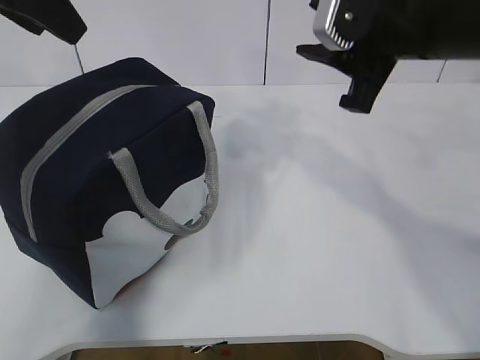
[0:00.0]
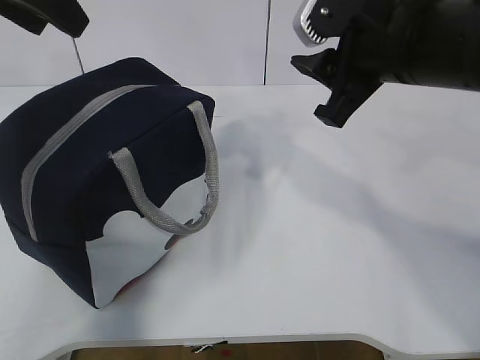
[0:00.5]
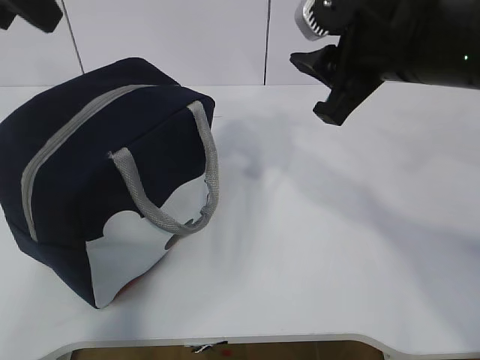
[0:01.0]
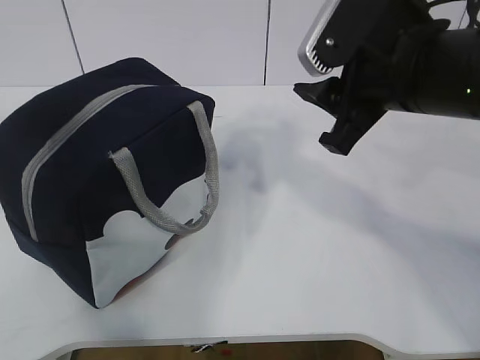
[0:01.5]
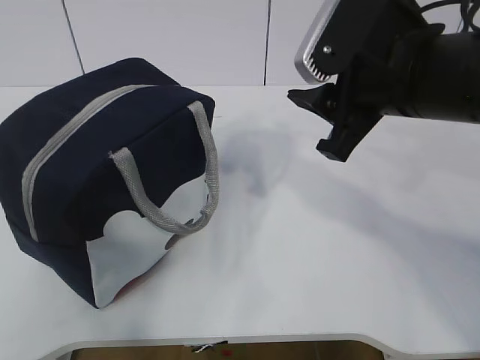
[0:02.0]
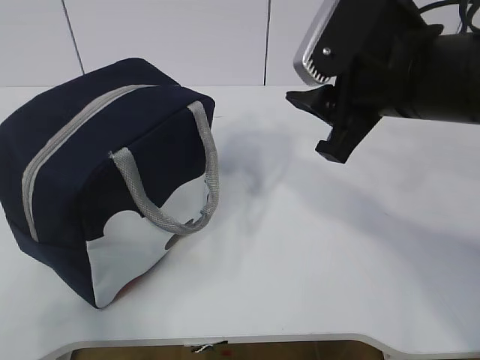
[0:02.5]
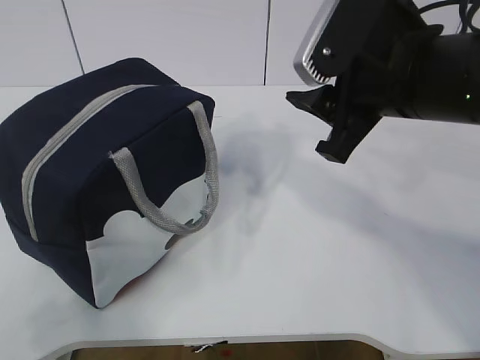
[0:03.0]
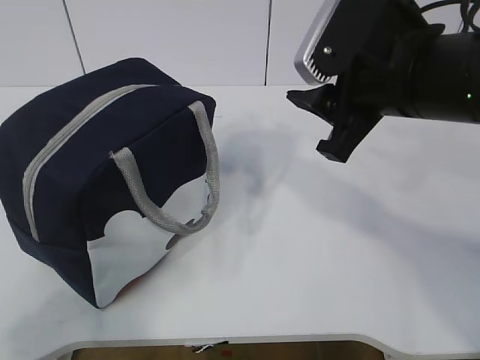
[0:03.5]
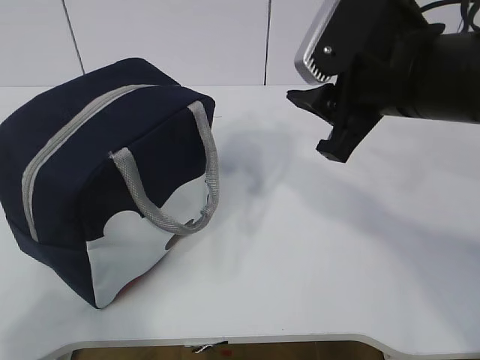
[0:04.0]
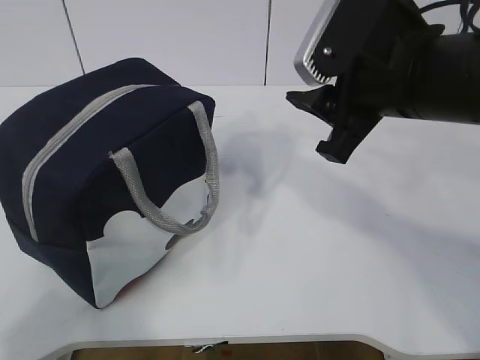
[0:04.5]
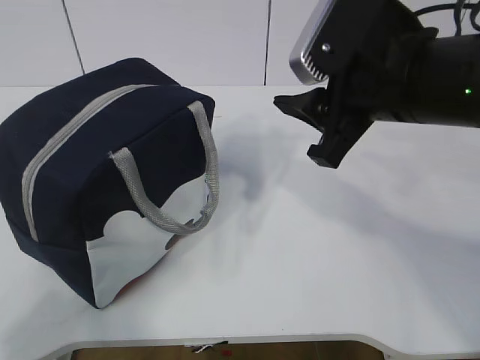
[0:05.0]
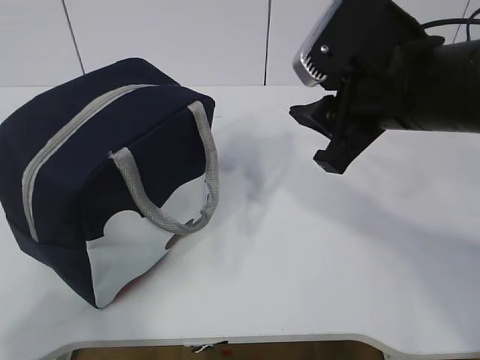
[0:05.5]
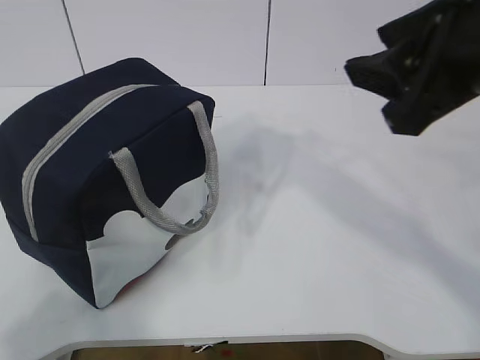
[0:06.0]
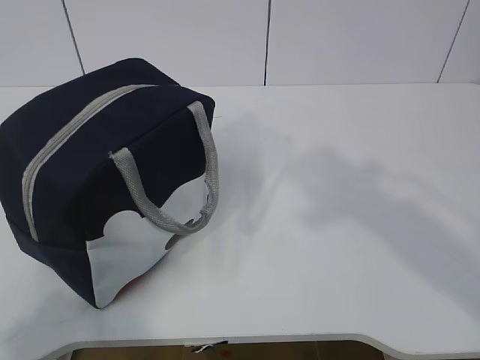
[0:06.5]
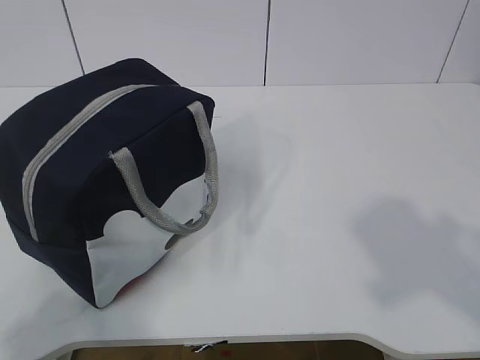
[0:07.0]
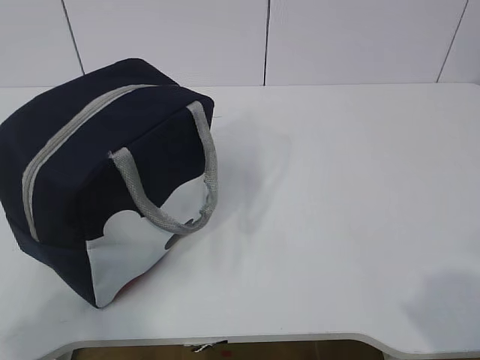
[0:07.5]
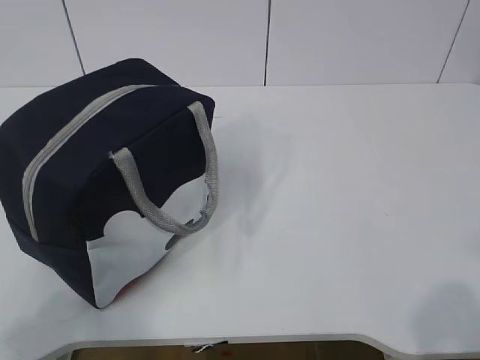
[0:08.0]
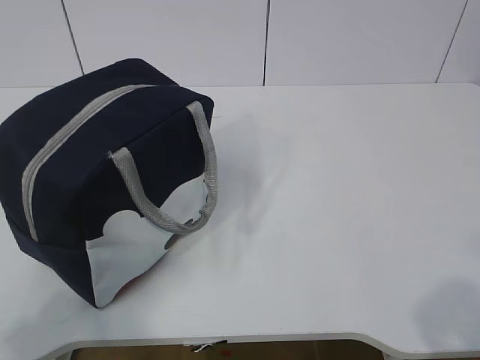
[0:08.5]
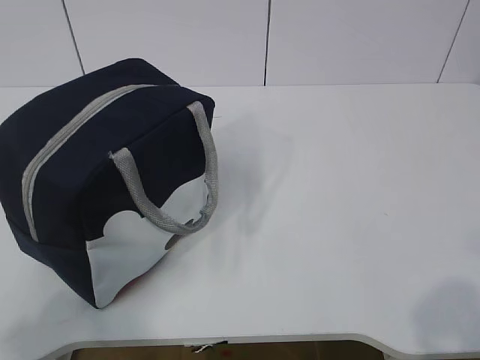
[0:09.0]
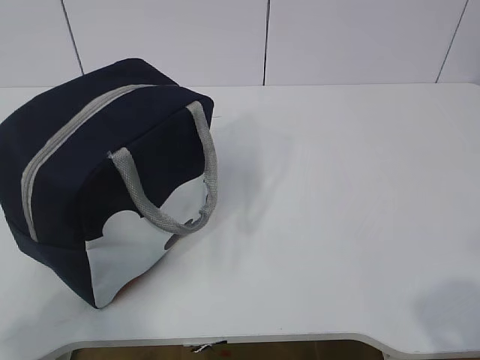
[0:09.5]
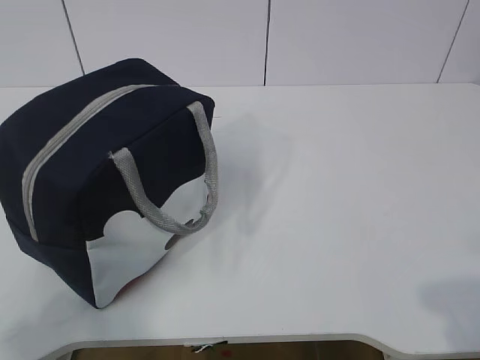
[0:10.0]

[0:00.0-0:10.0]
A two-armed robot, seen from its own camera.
0.0 to 2.0 s: The left gripper goes roughly 30 cm backward.
4.0 to 6.0 s: The right gripper goes approximately 5 cm backward.
6.0 to 8.0 s: The right gripper is displaced backward and to the right by approximately 25 cm.

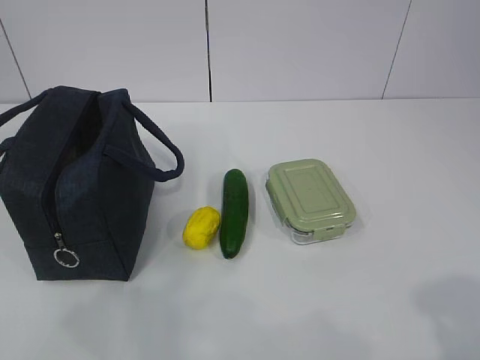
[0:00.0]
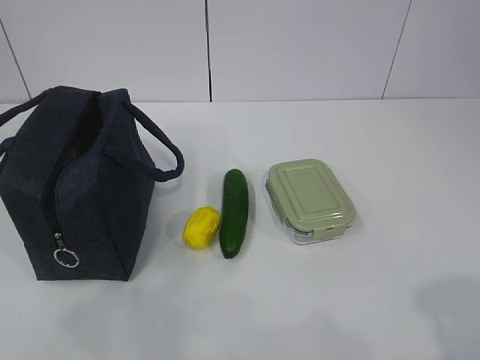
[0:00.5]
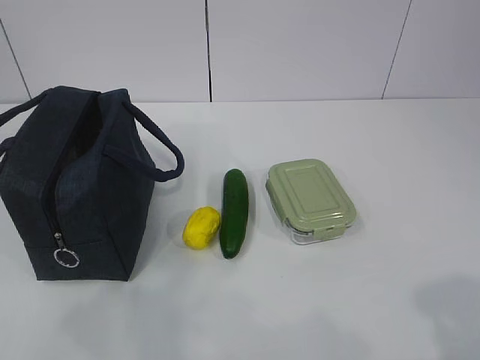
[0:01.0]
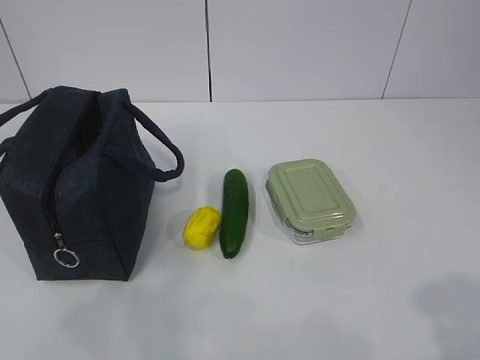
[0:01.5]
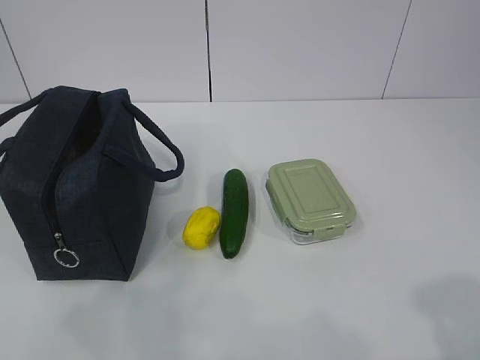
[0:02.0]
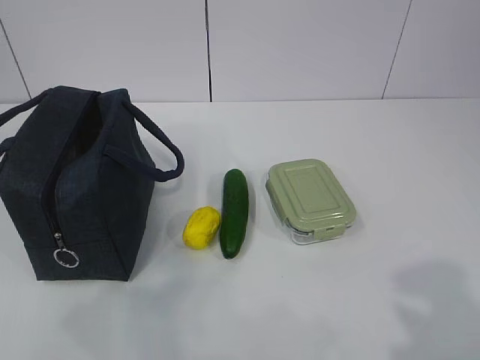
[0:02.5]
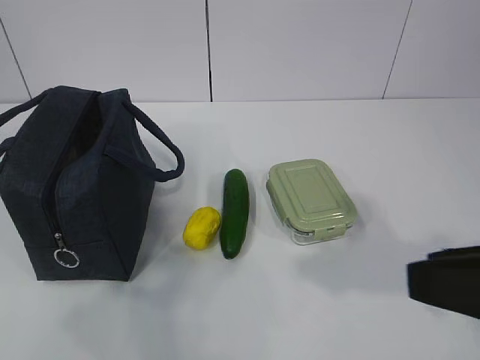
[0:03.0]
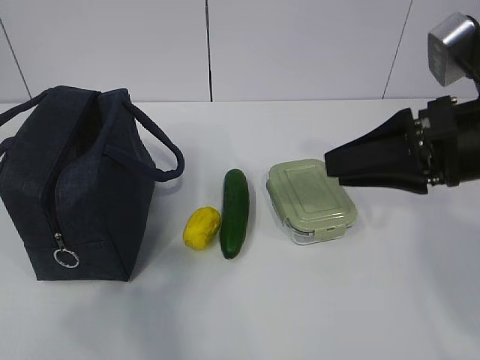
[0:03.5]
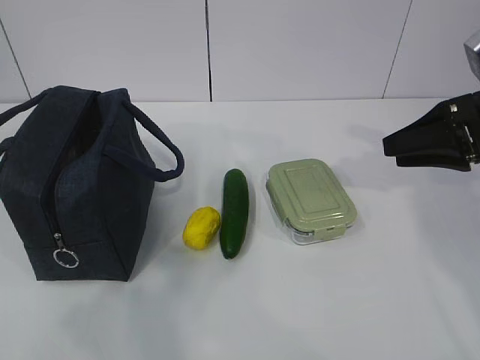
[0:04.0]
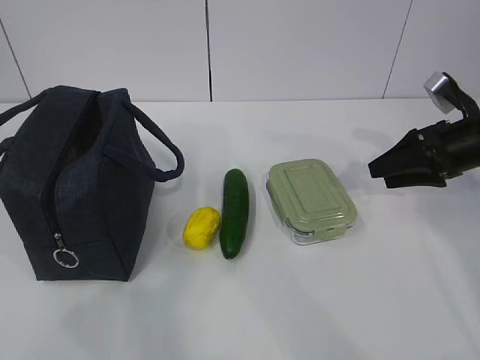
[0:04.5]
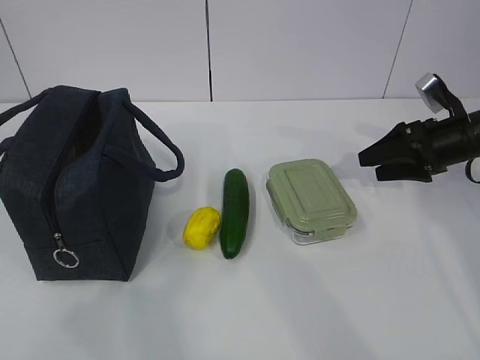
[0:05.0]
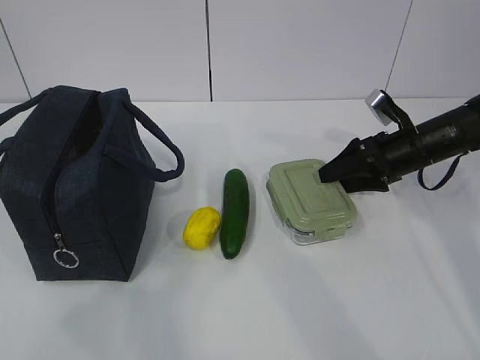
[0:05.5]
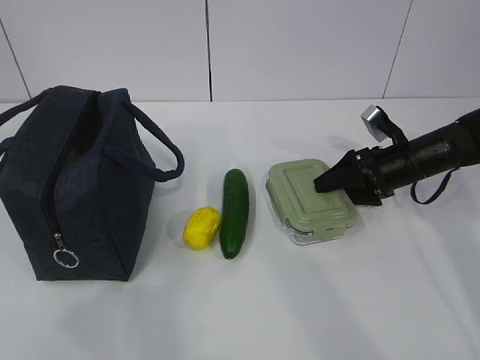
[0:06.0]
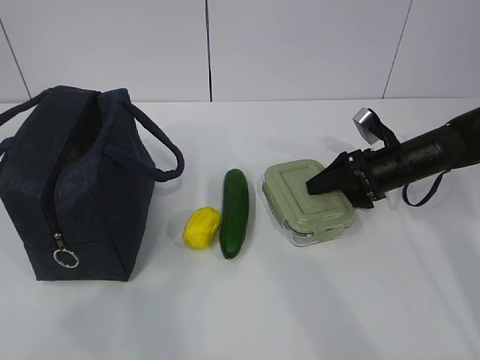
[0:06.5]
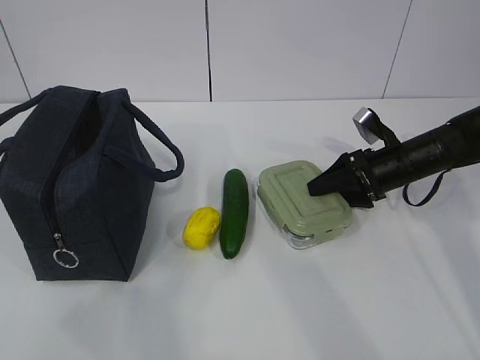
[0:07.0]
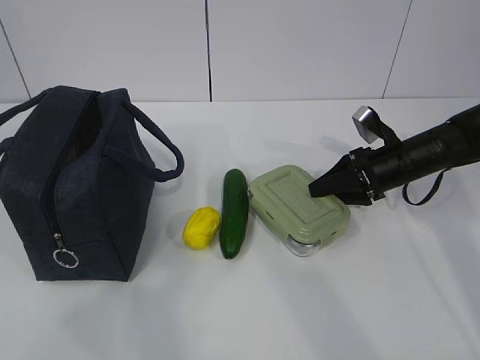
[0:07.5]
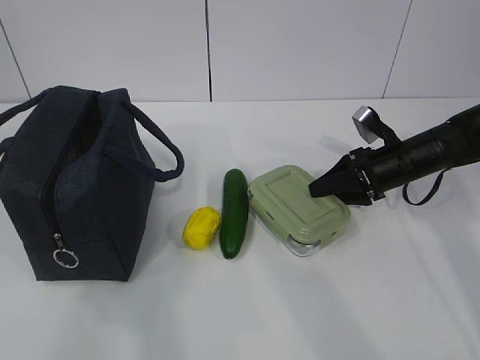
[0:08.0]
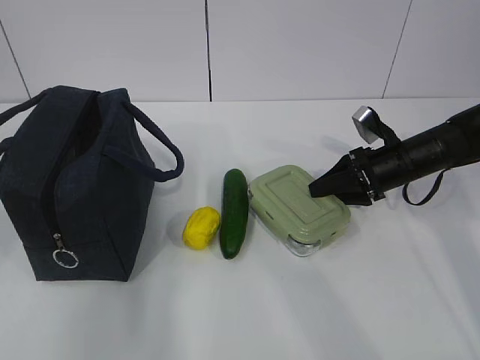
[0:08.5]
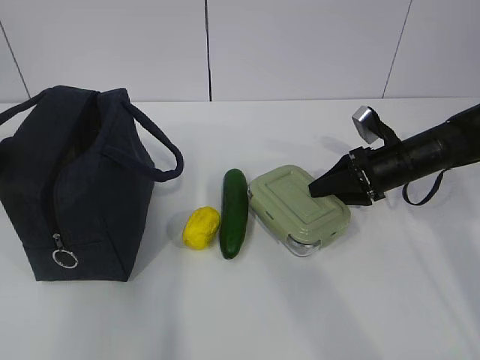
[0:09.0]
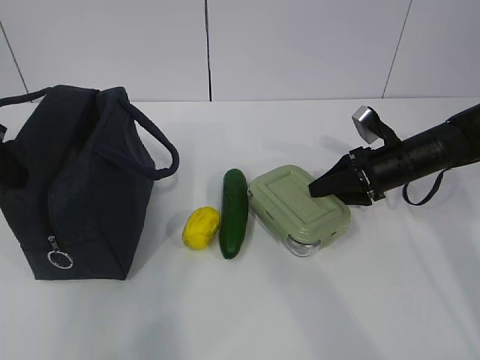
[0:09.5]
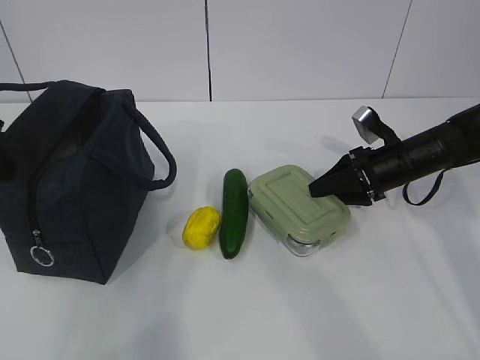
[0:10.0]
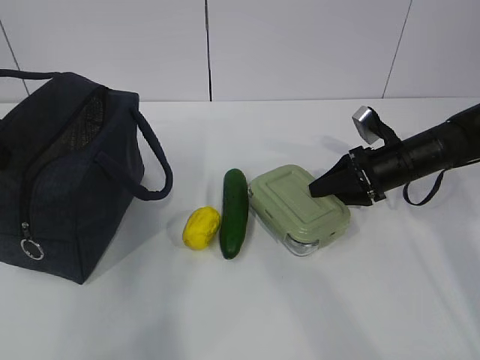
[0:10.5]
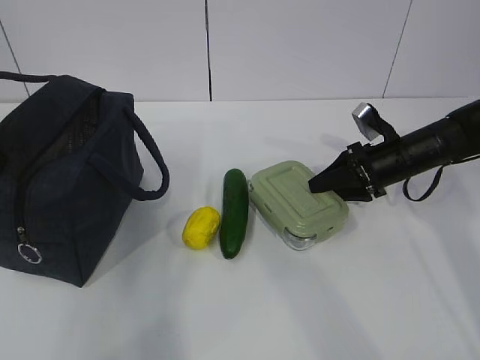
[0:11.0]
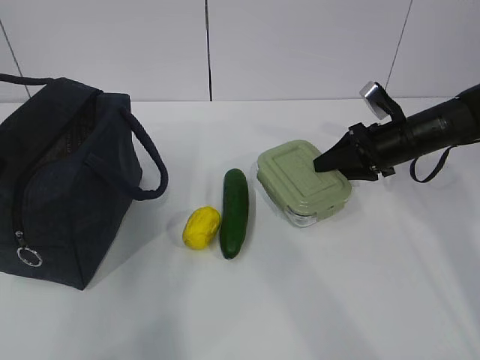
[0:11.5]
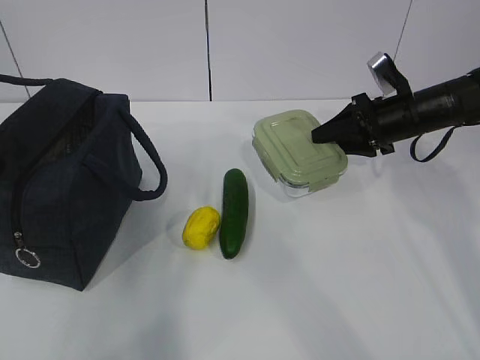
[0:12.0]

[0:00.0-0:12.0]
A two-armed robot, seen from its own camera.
Step, 0.0 to 9.0 s: Grab the lunch box with your right hand.
Step, 9.5 to 11.5 s: Grab the lunch bag with your left hand.
2.0 to 4.0 s: The right gripper goes approximately 35 cm forward.
4.0 to 6.0 s: The right gripper is displaced downward and forward by some 20 cm, and opens its fingers.
6.0 to 8.0 s: The right gripper closes its fingers.
8.0 to 10.0 s: The left gripper moves forward, about 25 cm, and closes its fingers.
10.0 to 12.0 s: The right gripper travels upward by about 5 cm.

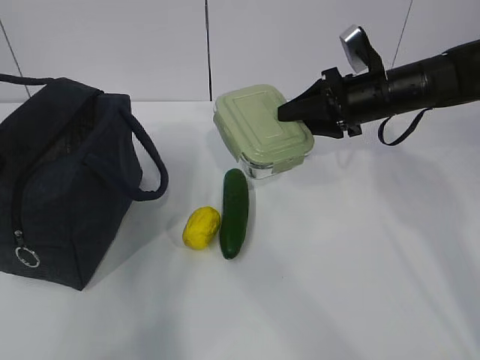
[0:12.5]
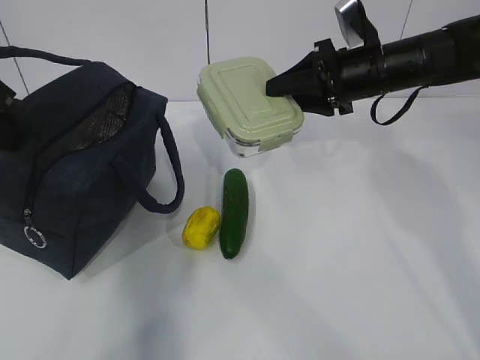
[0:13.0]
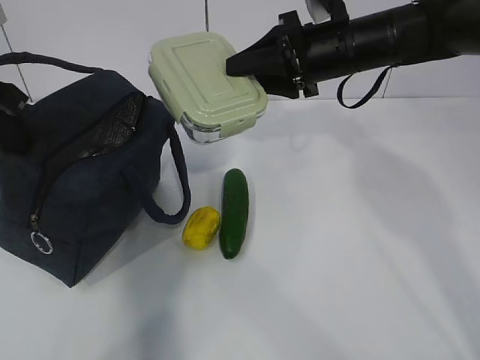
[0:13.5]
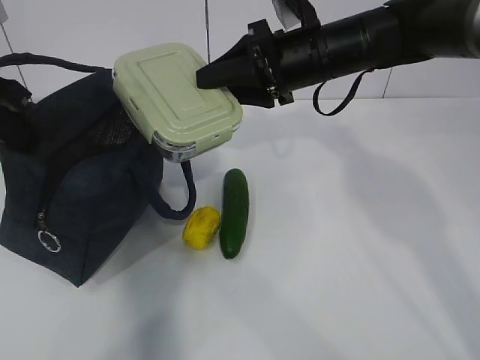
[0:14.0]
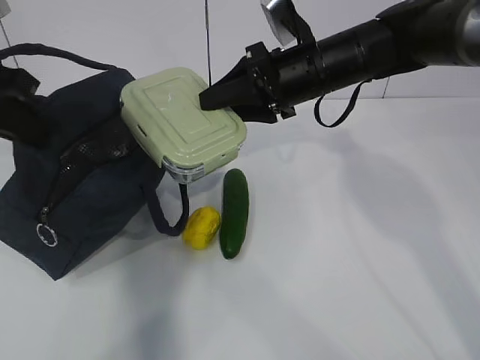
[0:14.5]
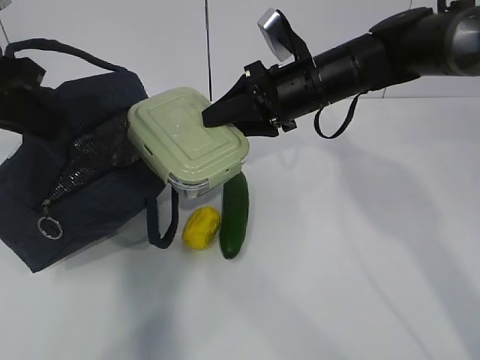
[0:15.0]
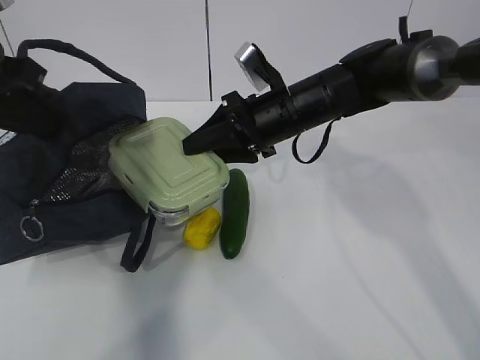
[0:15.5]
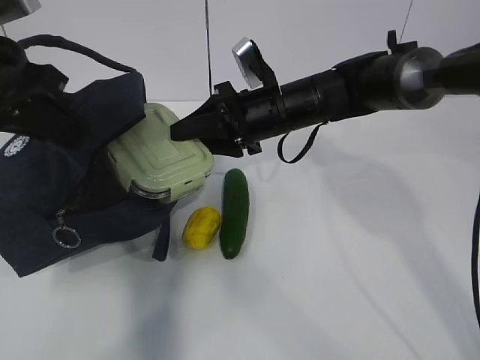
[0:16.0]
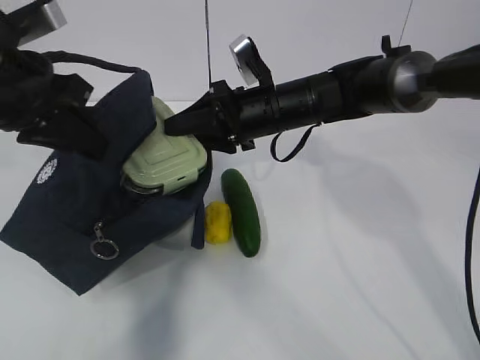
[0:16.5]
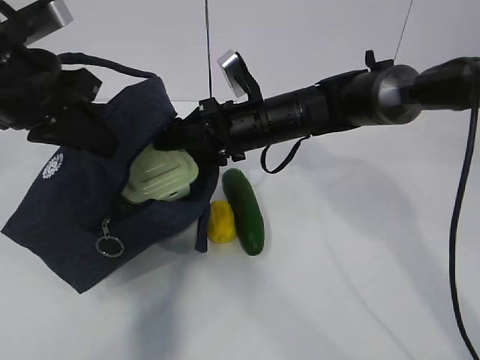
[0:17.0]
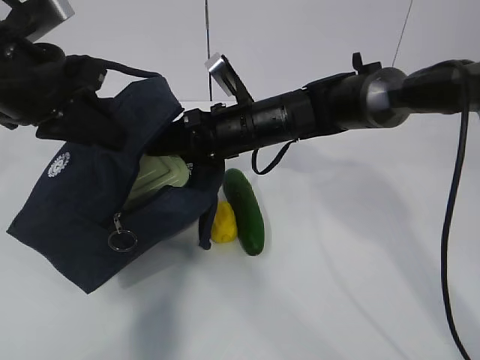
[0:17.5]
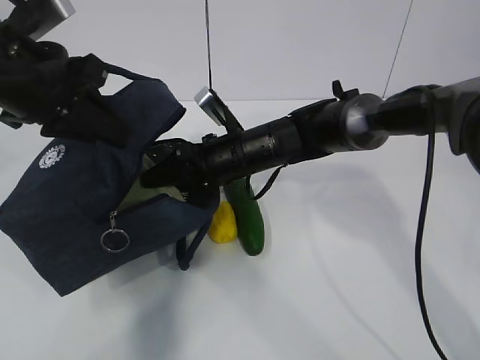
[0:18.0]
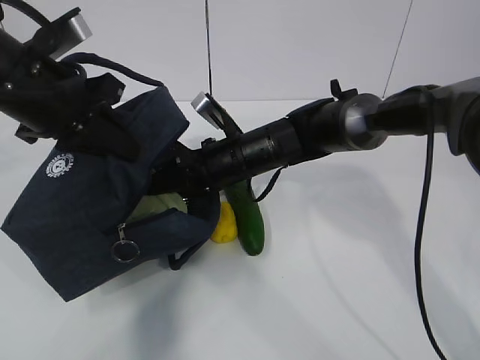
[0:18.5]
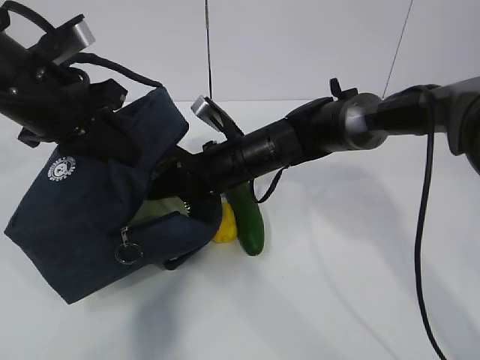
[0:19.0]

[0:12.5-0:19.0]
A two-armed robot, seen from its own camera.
Step, 12.5 to 16.0 s: Place it into the bag with your right hand.
Step, 16.5 to 18.0 s: Grab the cucumber with your right hand.
12.5 to 14.5 s: The right gripper travels to the left by approximately 10 cm. Meanwhile the left gripper shifts by some 5 cm.
14.5 to 17.0 s: The left gripper travels to the right by approximately 5 cm. Meanwhile the right gripper shifts some 10 cm downward and to the left.
17.0 to 19.0 s: The right gripper travels downward by roughly 5 cm.
